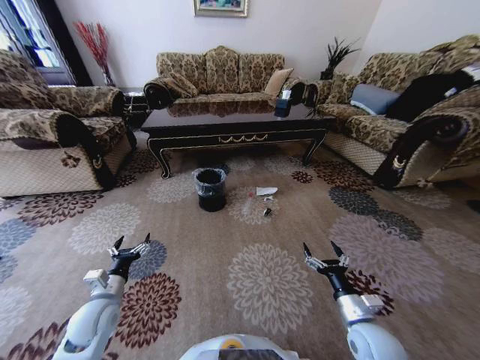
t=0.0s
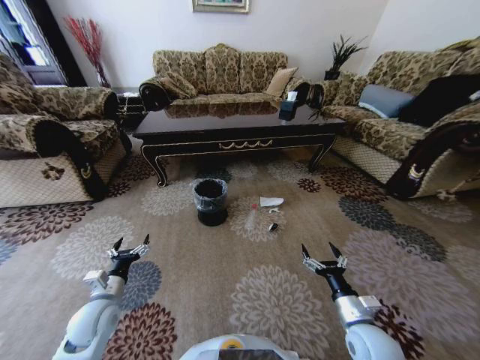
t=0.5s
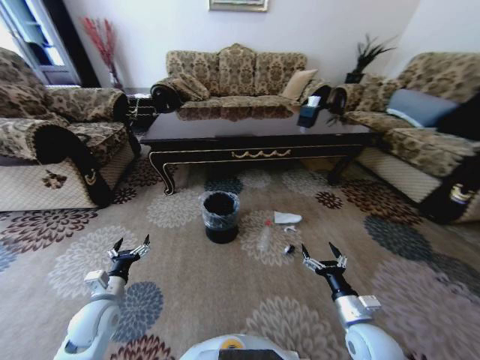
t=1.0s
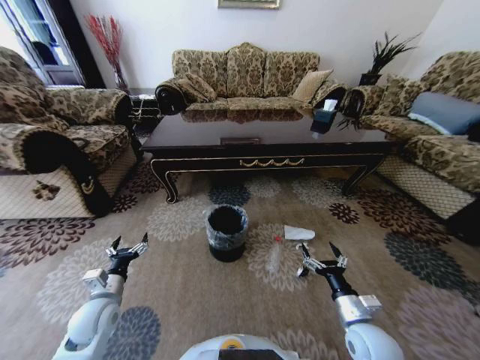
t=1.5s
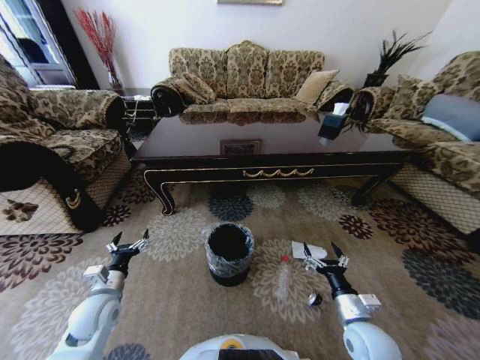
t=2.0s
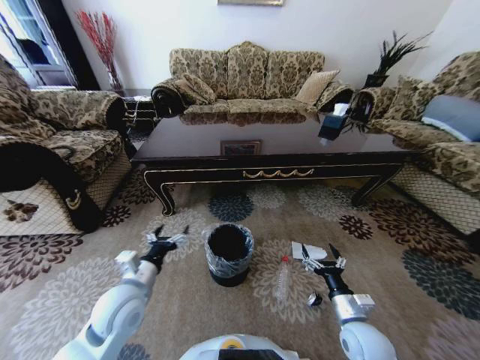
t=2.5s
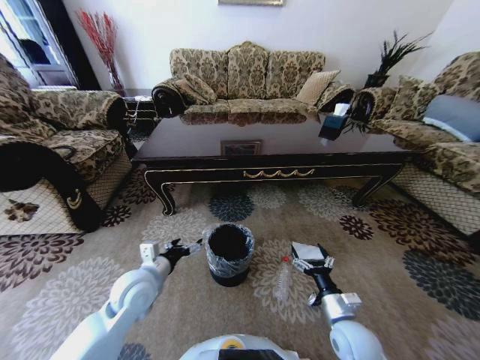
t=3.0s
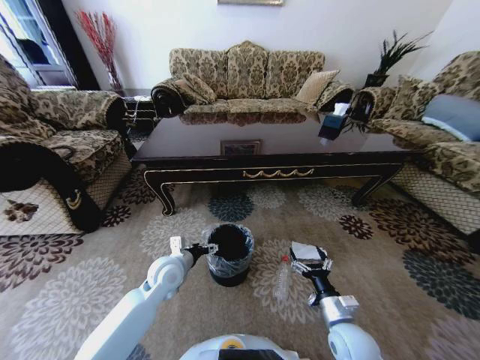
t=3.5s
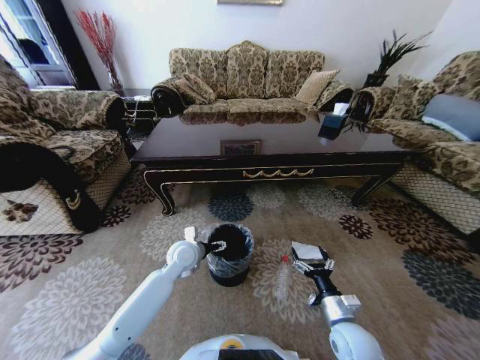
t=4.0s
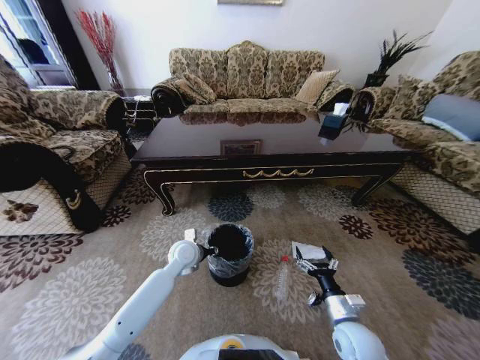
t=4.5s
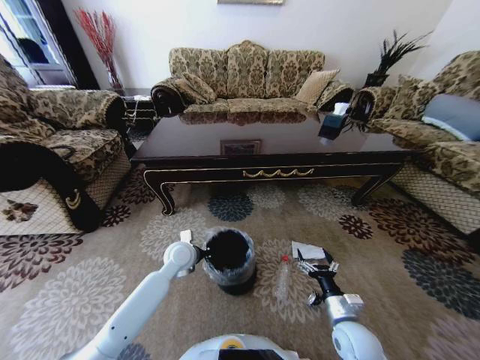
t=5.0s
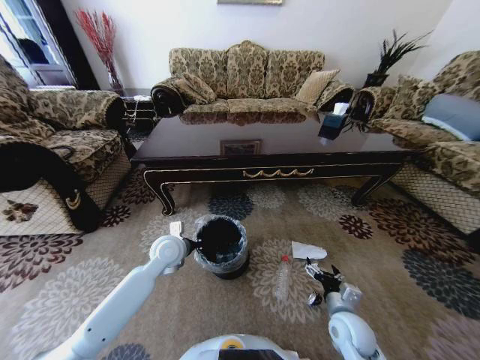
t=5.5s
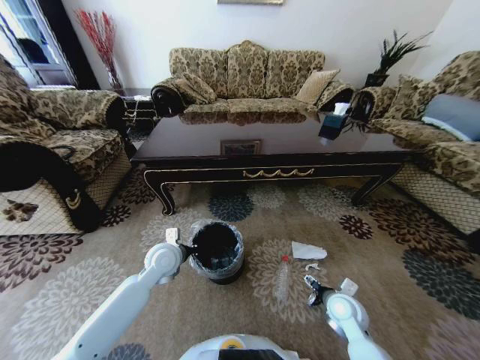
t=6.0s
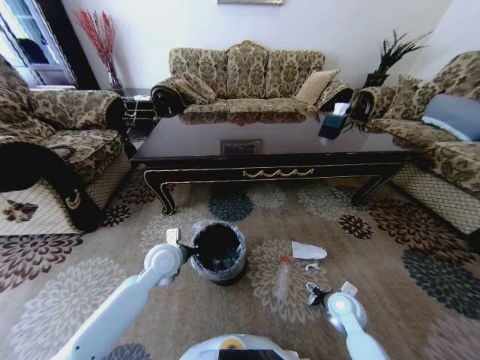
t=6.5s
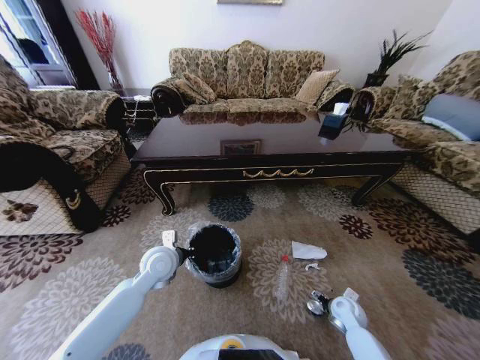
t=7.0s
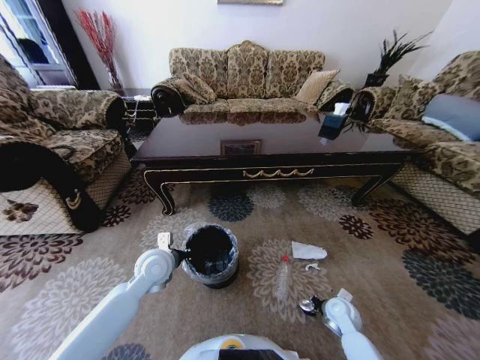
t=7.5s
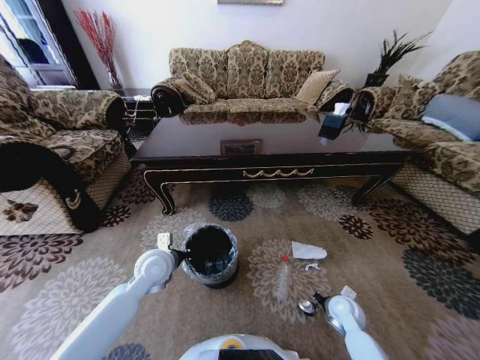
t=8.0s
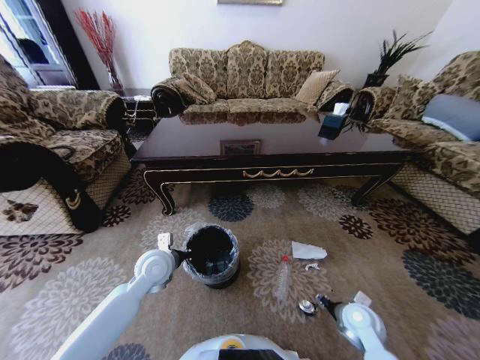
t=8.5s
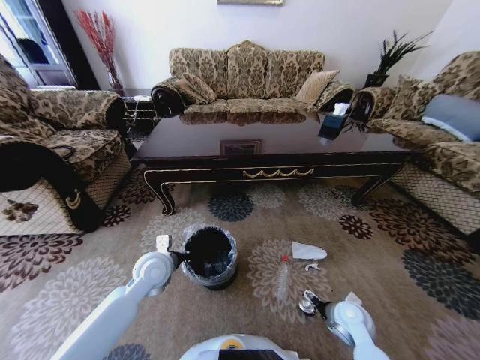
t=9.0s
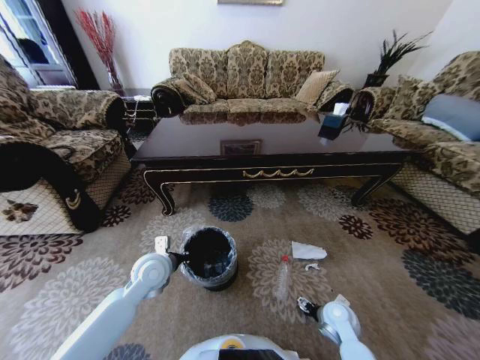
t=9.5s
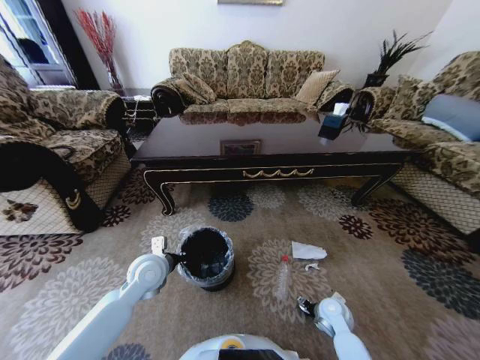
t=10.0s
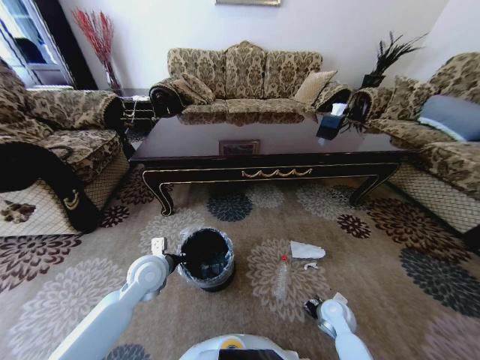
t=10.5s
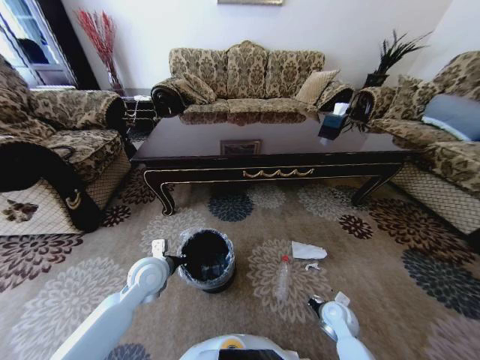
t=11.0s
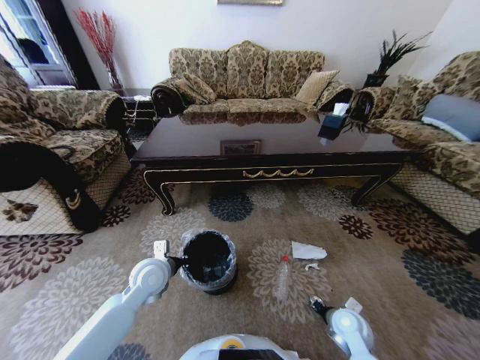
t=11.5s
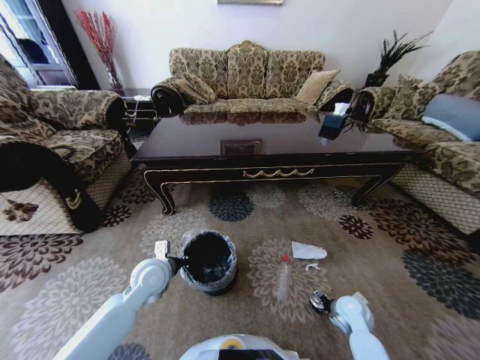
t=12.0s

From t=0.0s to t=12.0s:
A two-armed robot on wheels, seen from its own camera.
Task of the whole recording: Move to the front of the table and pick up the trash from the floor, then place it into the trash bin.
From t=2.0s to t=4.0s: The left gripper is displaced to the right and forward by some 25 cm.
From t=4.0s to t=6.0s: The right gripper travels forward by roughly 5 cm; the left gripper shifts by about 5 cm, and closes up.
From t=6.0s to t=8.0s: The right gripper goes some 5 cm downward, and closes.
From t=8.0s to t=10.0s: The right gripper opens up.
From t=10.0s to t=12.0s: The right gripper changes place by approximately 5 cm, and closes, then opens again.

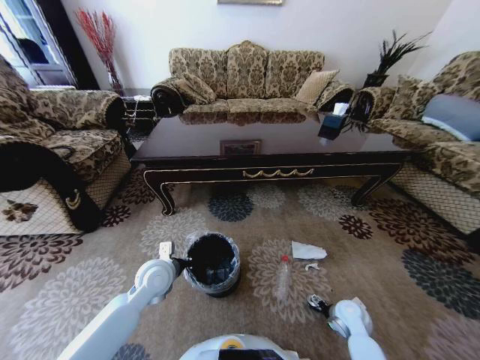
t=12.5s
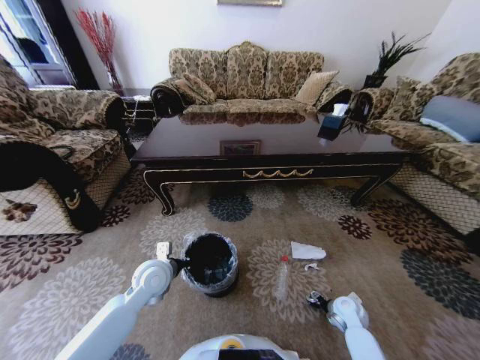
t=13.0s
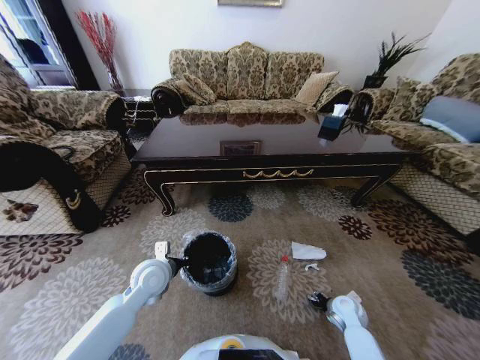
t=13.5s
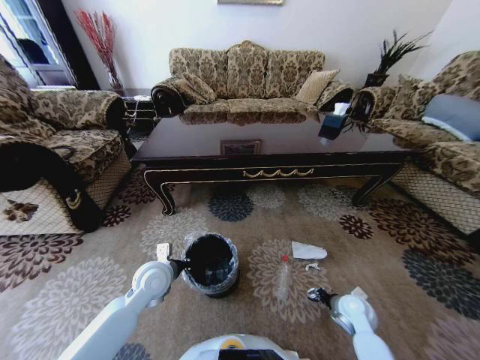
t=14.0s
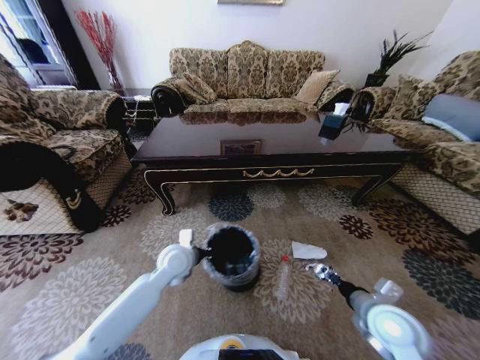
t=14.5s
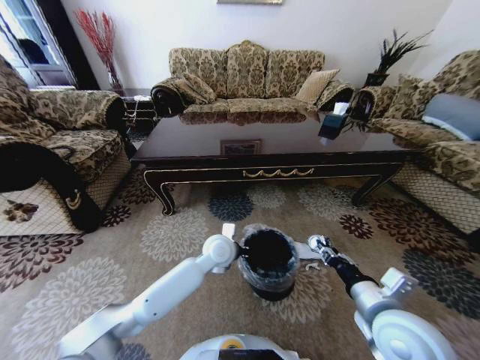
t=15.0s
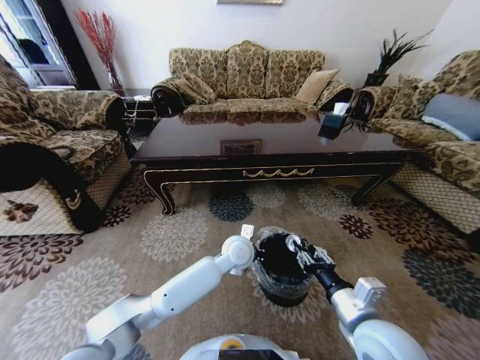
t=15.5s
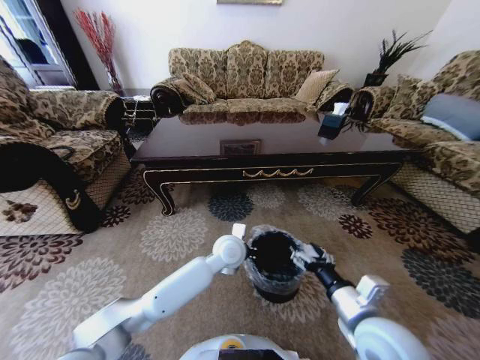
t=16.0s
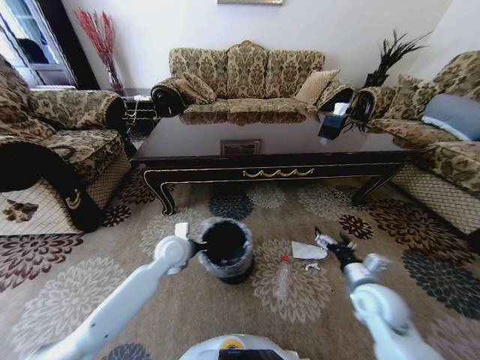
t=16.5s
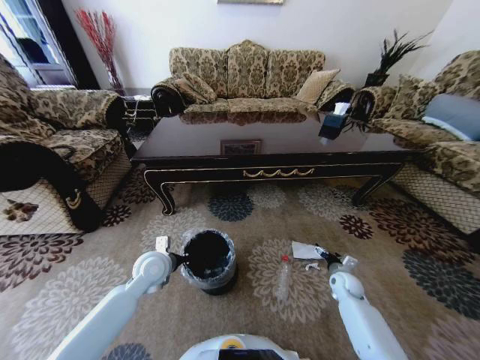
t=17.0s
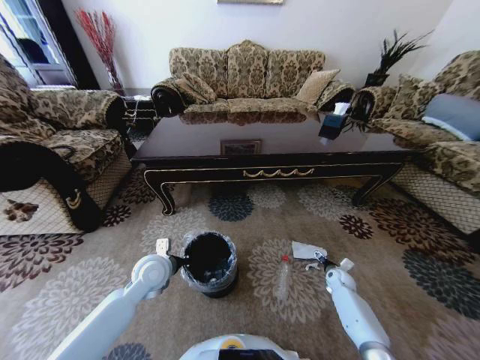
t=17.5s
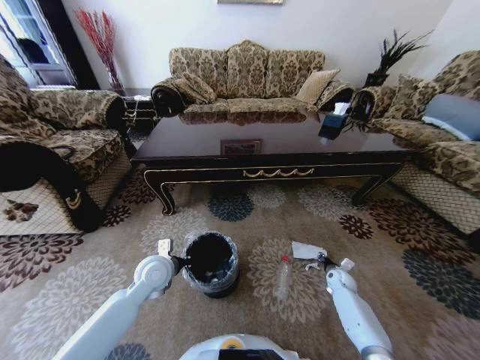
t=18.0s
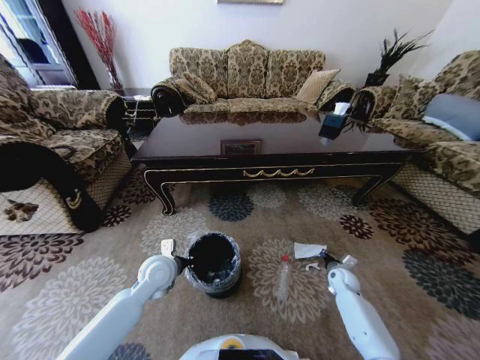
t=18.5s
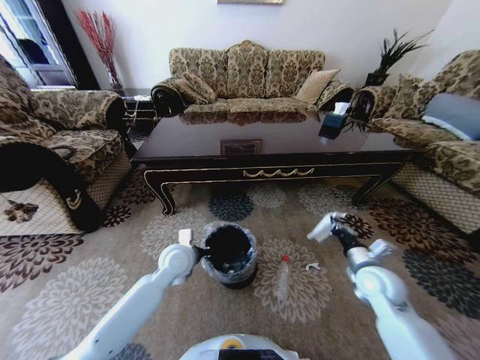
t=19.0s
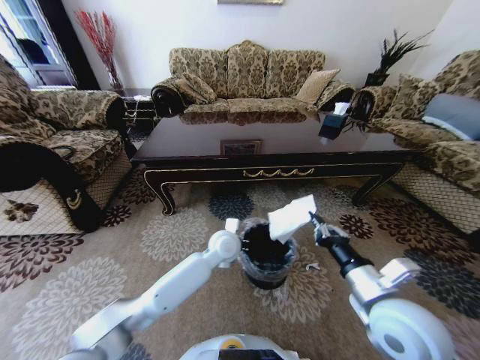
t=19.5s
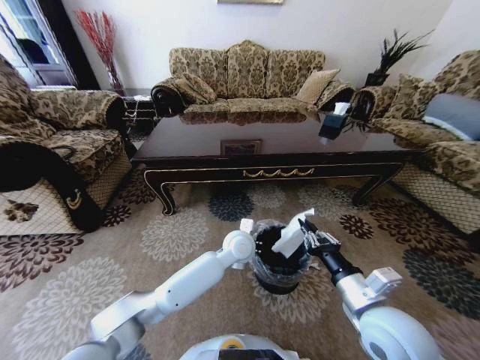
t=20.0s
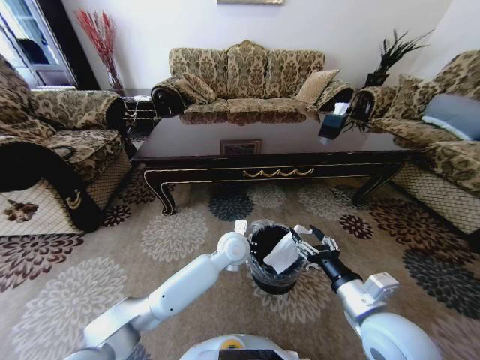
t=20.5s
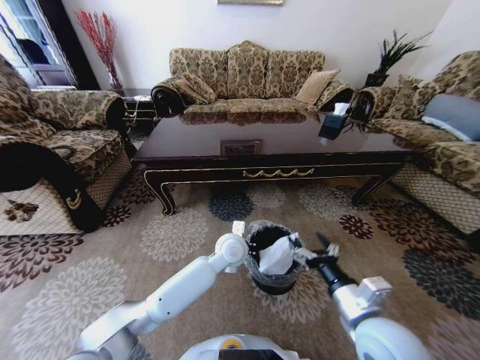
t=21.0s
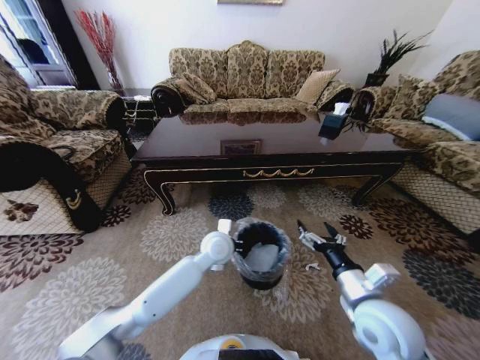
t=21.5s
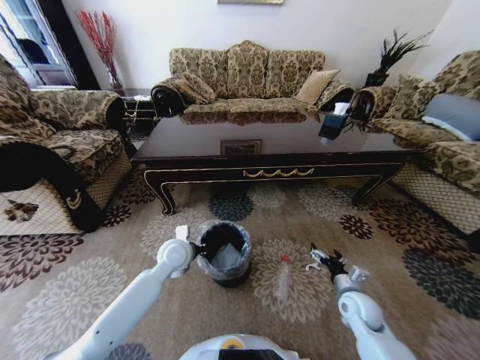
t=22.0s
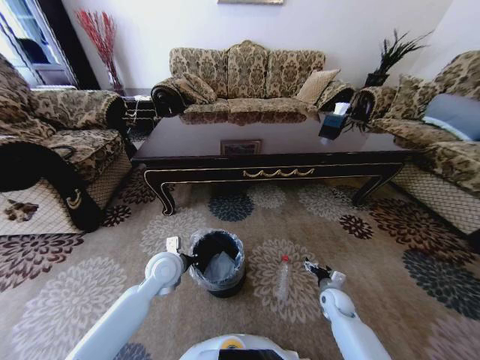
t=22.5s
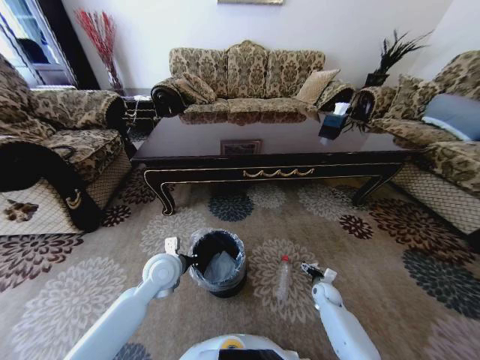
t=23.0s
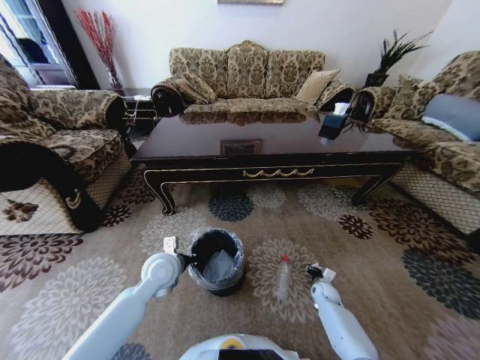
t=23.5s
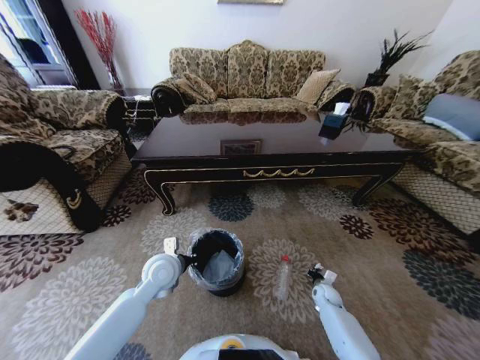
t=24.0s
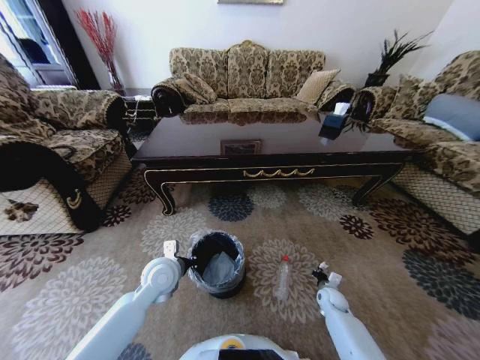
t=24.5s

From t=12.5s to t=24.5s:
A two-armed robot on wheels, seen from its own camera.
Task of the whole recording: Move to the front of the table and pick up the trash from the floor, then place it into the trash bin.
From t=12.5s to t=14.5s: The right gripper moves upward, roughly 20 cm, and closes its fingers; the left gripper is displaced to the right by approximately 5 cm.
From t=14.5s to t=16.5s: The left gripper reaches roughly 20 cm to the right, then returns; the right gripper is displaced forward by some 5 cm, travels to the left and back again, some 10 cm each way, and opens its fingers.
From t=16.5s to t=18.5s: The left gripper moves backward, roughly 5 cm; the right gripper travels downward, forward and to the right by some 25 cm, and closes.
From t=18.5s to t=20.5s: The right gripper moves upward, backward and to the left, some 35 cm, and opens its fingers. Meanwhile the left gripper heads to the right, covering about 20 cm.
From t=20.5s to t=22.5s: The left gripper is displaced to the left by approximately 20 cm, while the right gripper travels downward and forward by approximately 30 cm, and opens its fingers.
From t=22.5s to t=24.5s: The right gripper closes up.

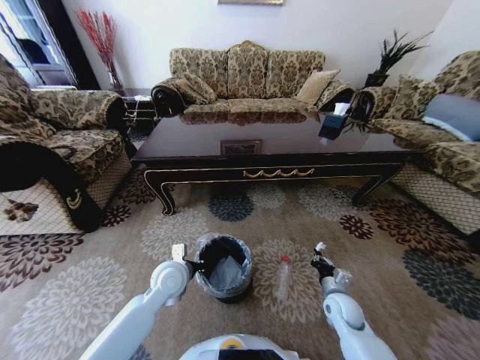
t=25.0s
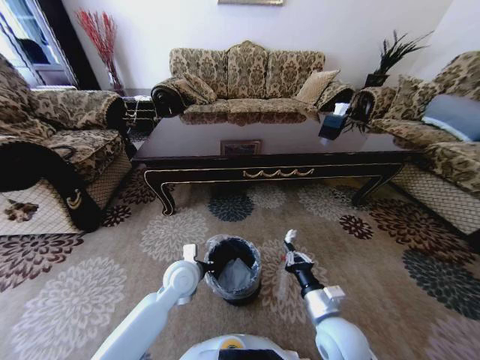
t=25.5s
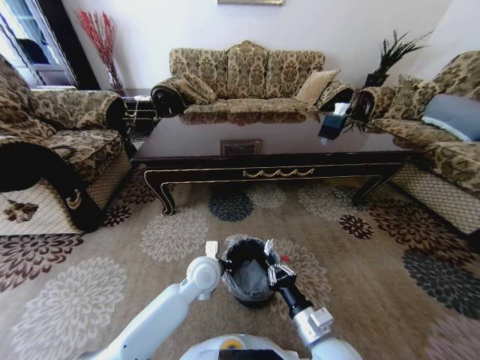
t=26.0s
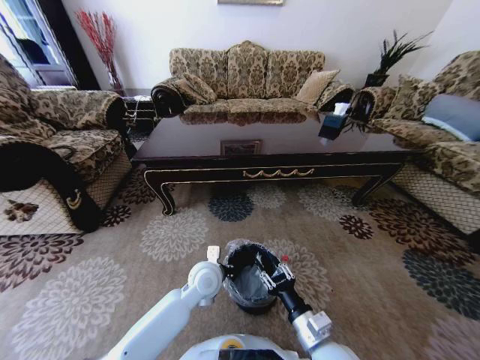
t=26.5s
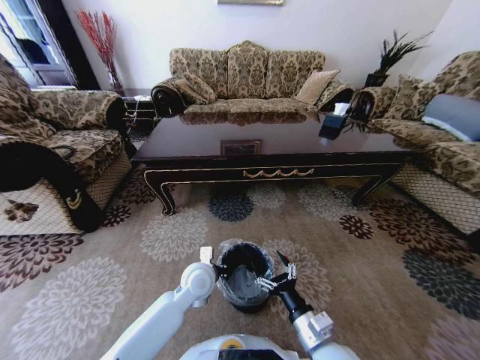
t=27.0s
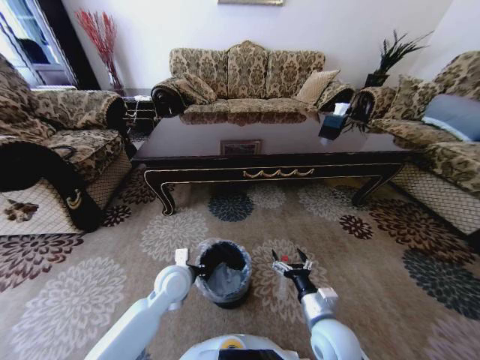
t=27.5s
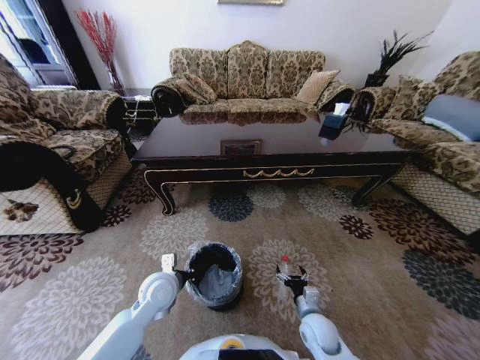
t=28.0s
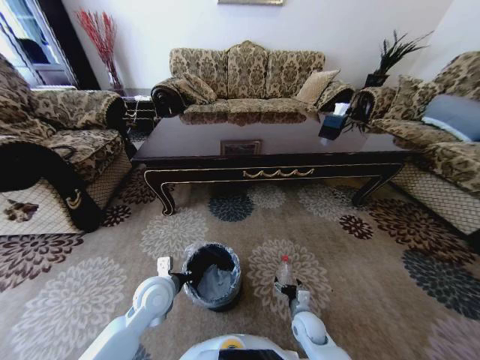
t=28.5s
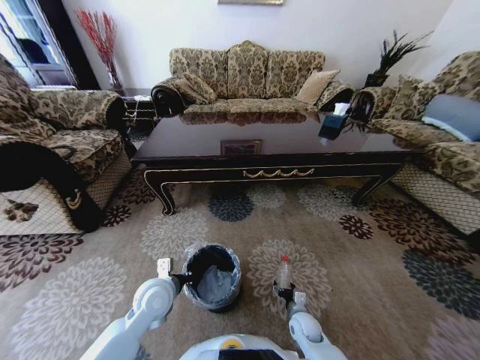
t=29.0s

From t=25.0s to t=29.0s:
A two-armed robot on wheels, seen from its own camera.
Task of the whole recording: Move to the front of the table and pick up the trash from the floor, then place it into the trash bin.
From t=25.0s to t=27.0s: The right gripper goes roughly 20 cm to the left, backward and upward, and opens its fingers, while the left gripper is displaced to the right by some 10 cm.
From t=27.0s to t=29.0s: The left gripper goes roughly 10 cm to the left; the right gripper is displaced downward and forward by roughly 25 cm.
